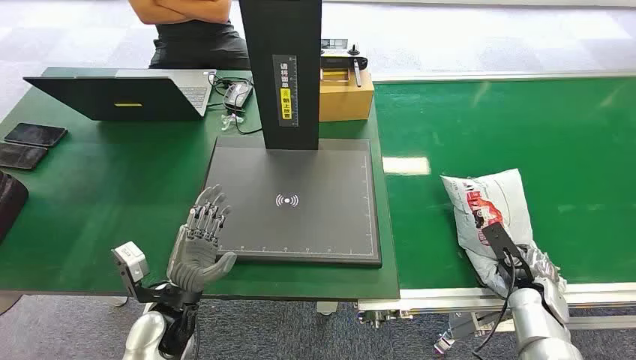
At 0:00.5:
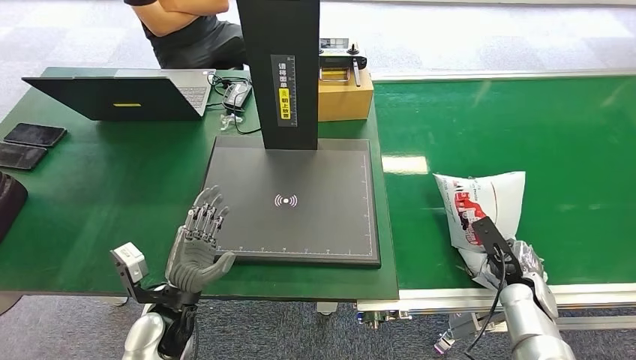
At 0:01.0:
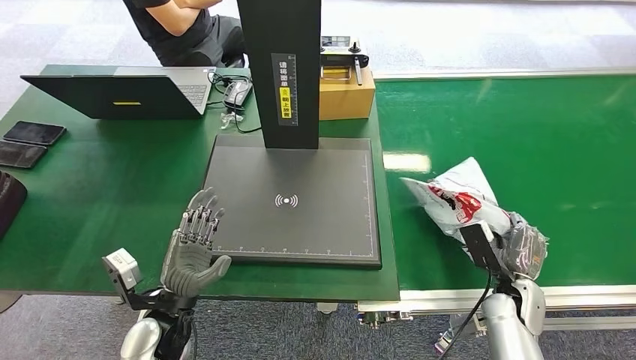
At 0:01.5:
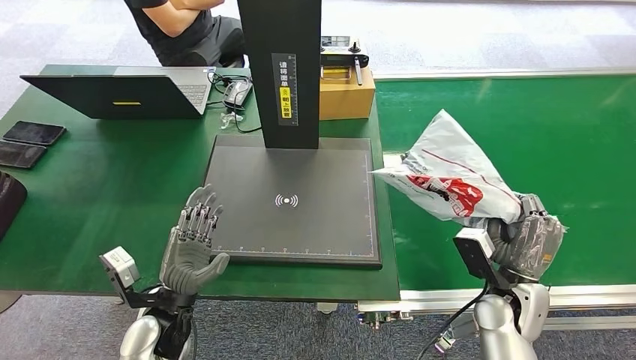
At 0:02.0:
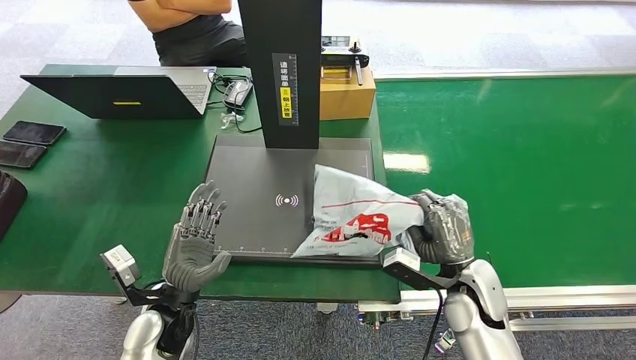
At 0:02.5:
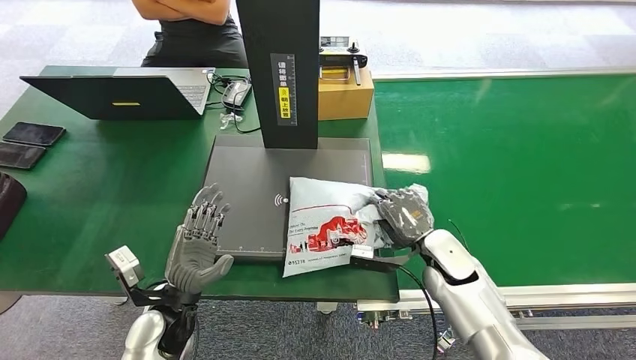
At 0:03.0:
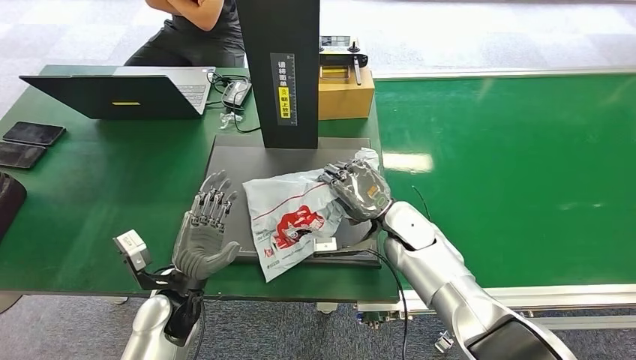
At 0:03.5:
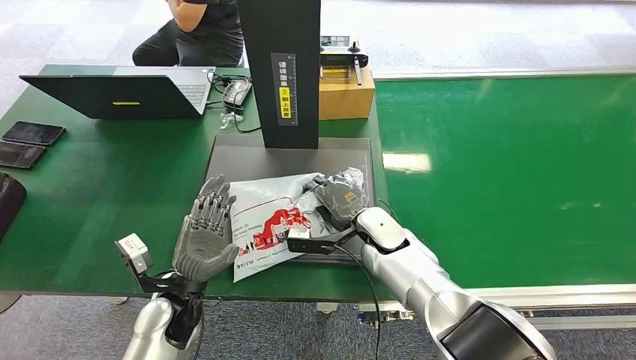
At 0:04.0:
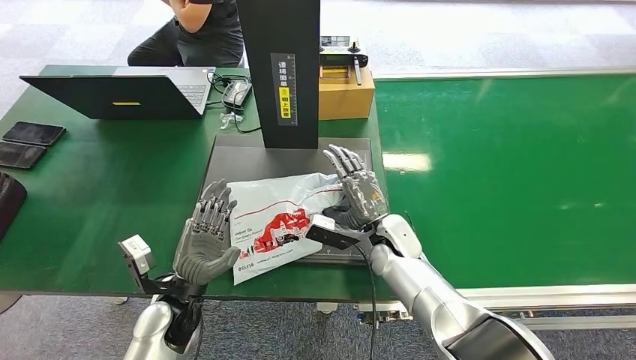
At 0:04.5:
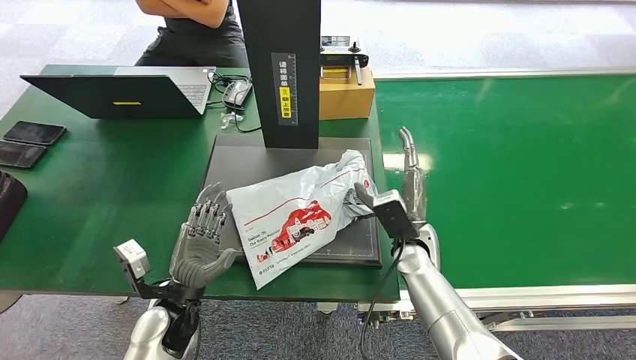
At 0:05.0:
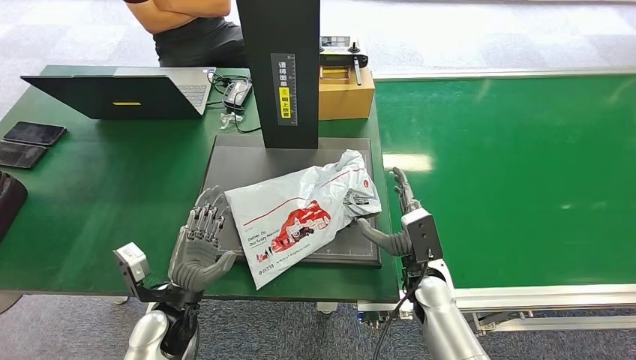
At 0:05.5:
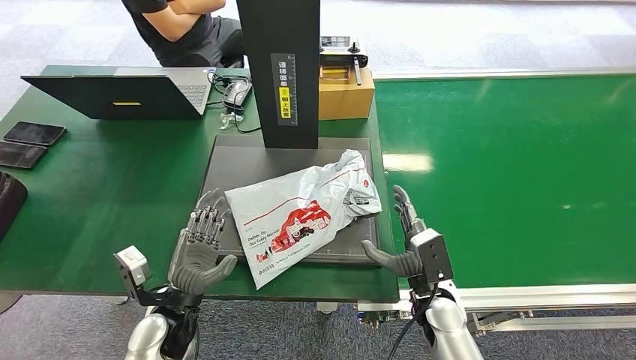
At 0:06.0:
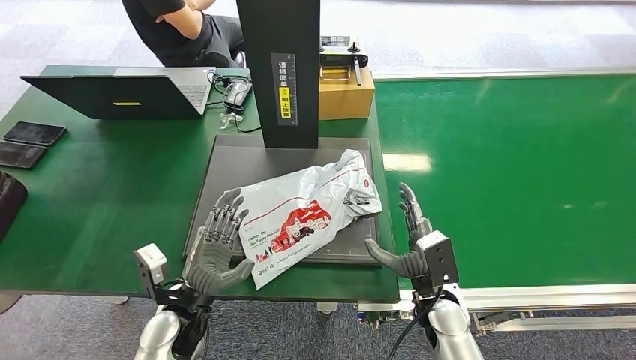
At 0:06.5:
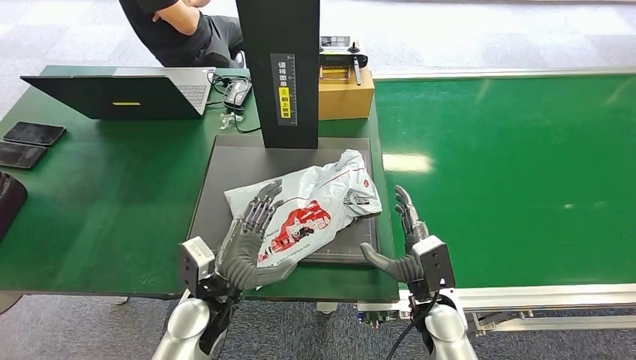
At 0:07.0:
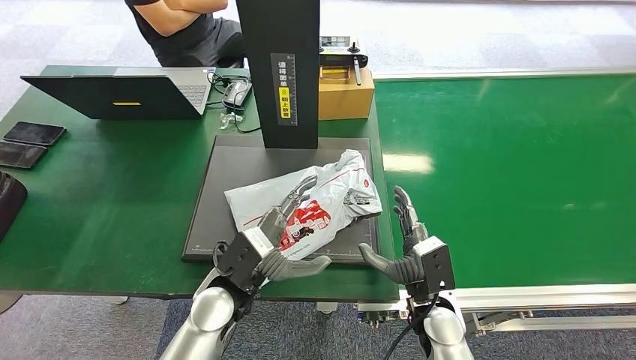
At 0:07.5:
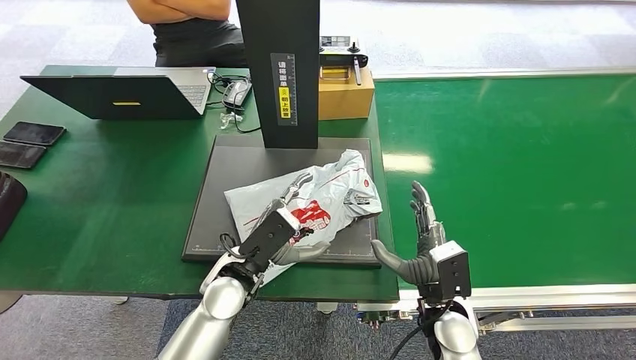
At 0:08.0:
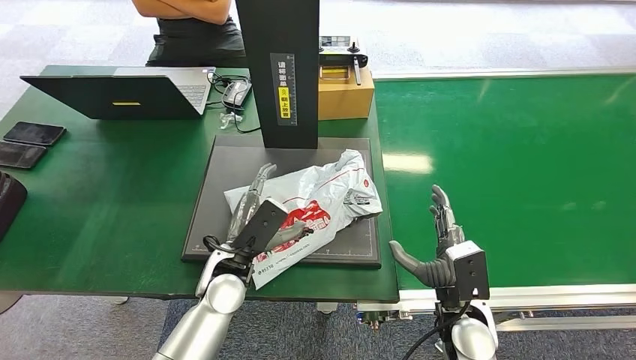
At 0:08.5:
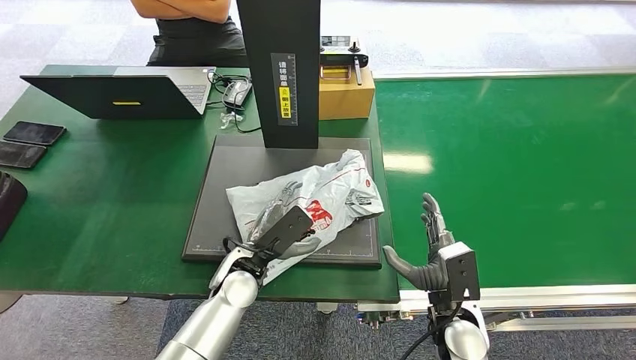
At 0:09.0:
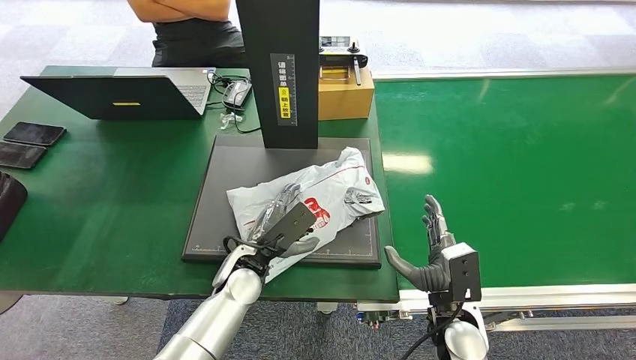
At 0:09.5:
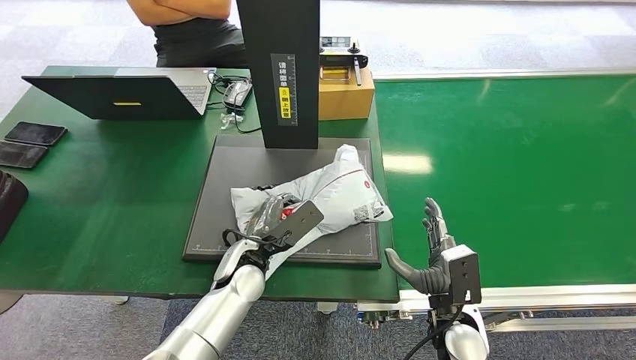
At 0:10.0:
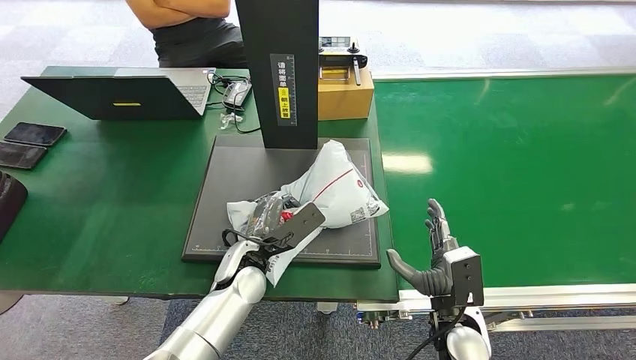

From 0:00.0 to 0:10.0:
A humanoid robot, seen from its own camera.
Step, from 0:00.0 to 0:01.0: Pick up the package from the conveyor belt.
Step, from 0:01.5 to 0:05.0: Place the package onto the inbound machine.
From 0:02.0 to 0:04.0: The right hand travels to the left and forward by some 15 cm.
From 0:04.0 to 0:06.0: The right hand travels backward and to the right by roughly 15 cm.
From 0:06.0 to 0:08.0: The right hand shifts by some 5 cm. Meanwhile the left hand goes some 10 cm to the right and forward.

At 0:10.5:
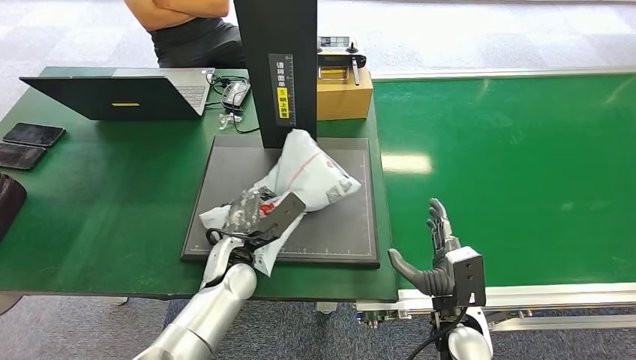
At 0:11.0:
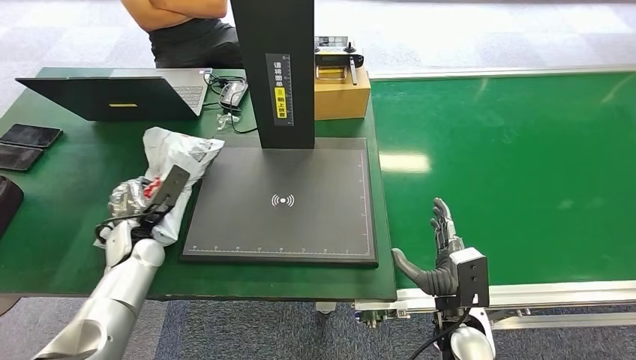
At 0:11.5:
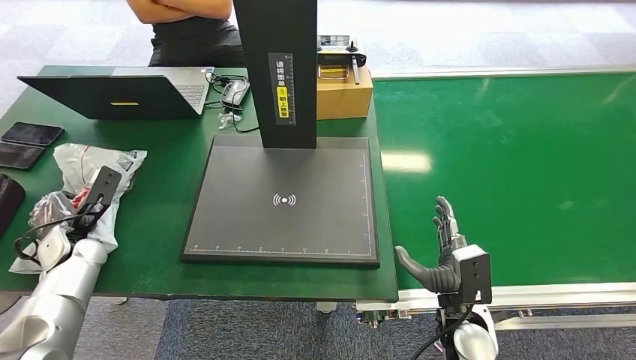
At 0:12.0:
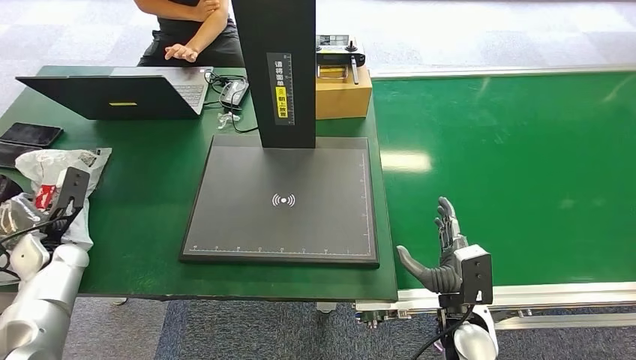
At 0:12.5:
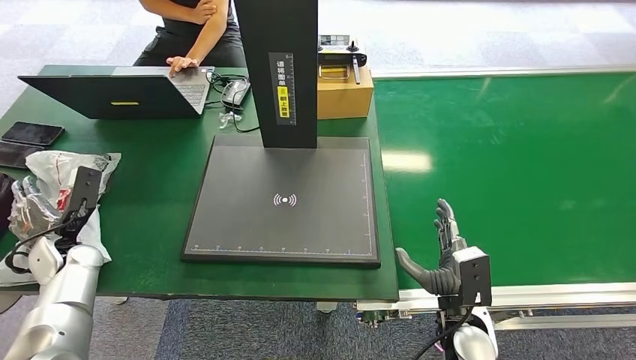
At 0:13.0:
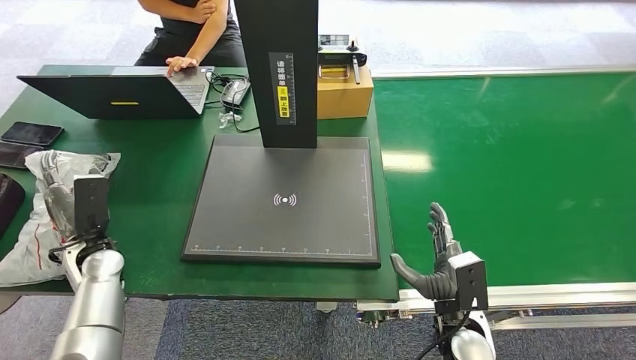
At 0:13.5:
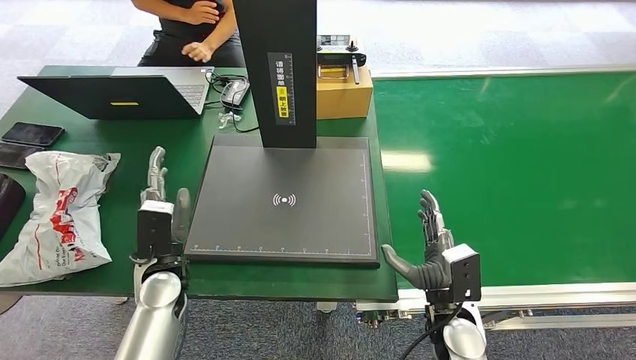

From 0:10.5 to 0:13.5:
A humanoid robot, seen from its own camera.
Step, from 0:11.5 to 0:13.5: Place the package into the parcel locker.
From 0:12.0 to 0:13.5: The left hand goes roughly 25 cm to the right.
